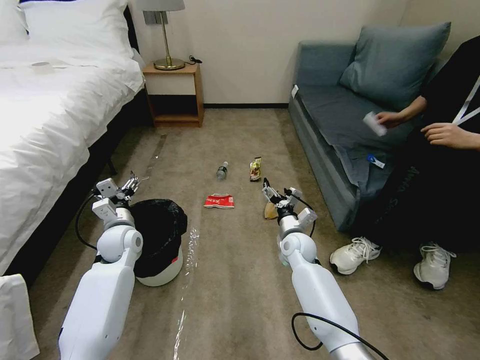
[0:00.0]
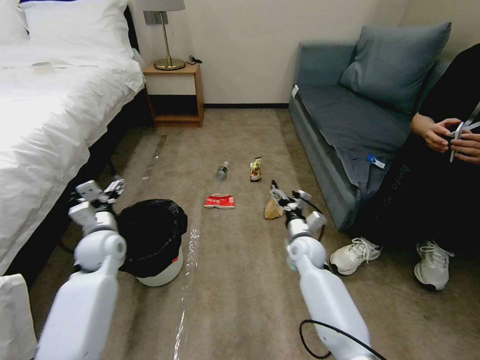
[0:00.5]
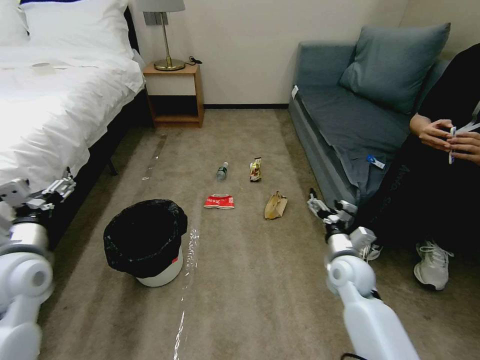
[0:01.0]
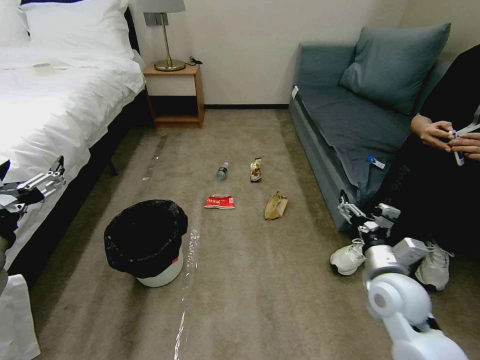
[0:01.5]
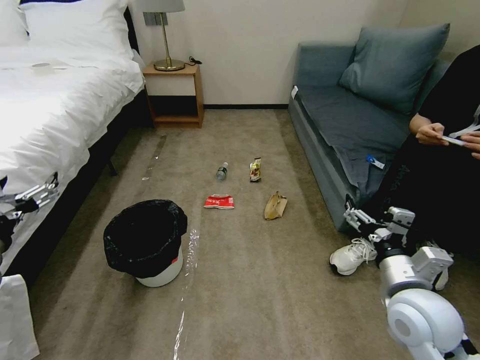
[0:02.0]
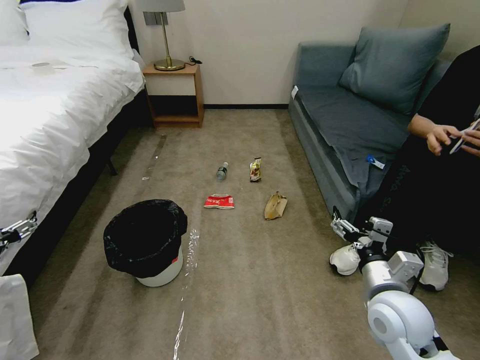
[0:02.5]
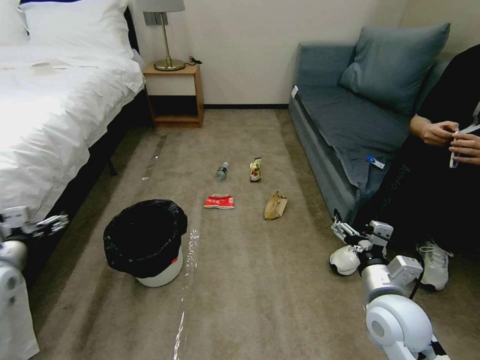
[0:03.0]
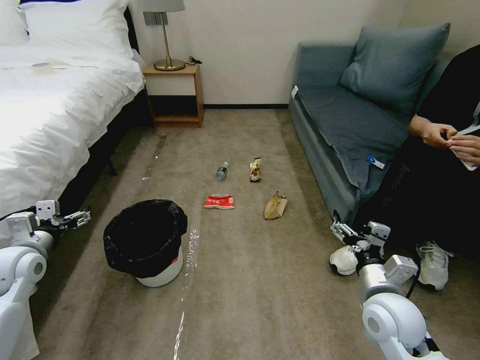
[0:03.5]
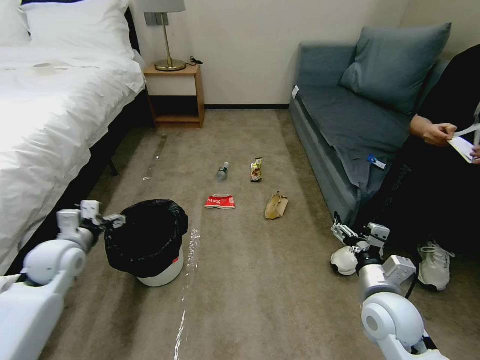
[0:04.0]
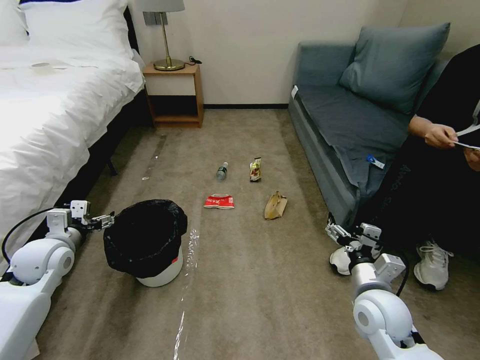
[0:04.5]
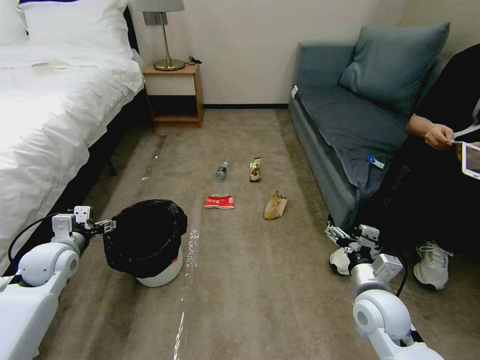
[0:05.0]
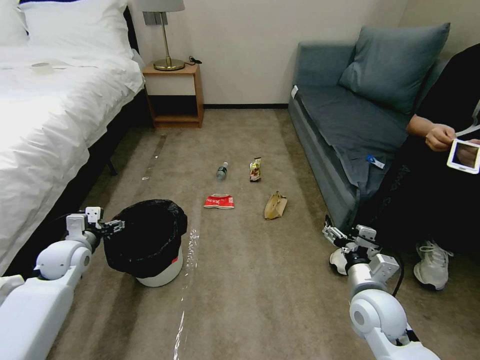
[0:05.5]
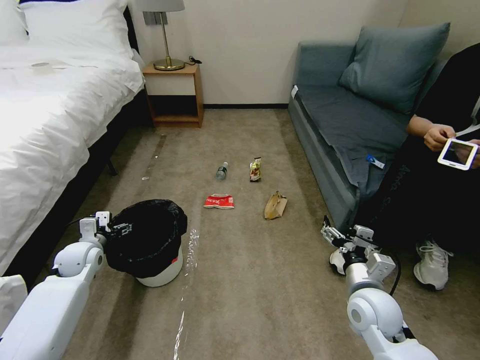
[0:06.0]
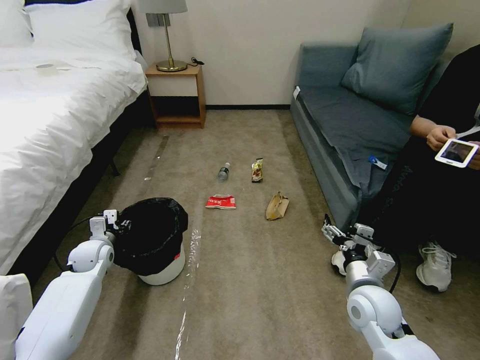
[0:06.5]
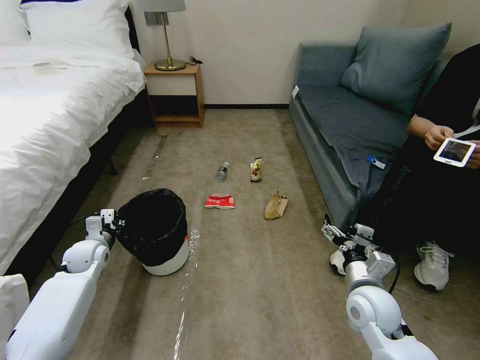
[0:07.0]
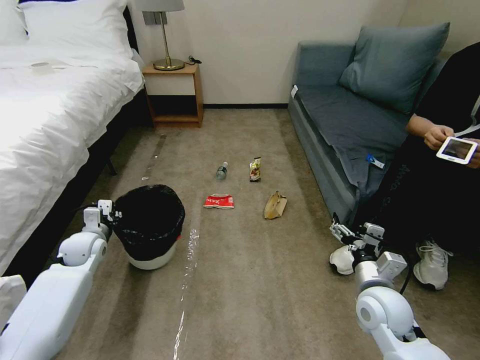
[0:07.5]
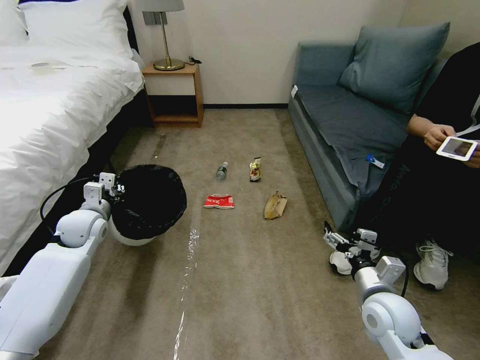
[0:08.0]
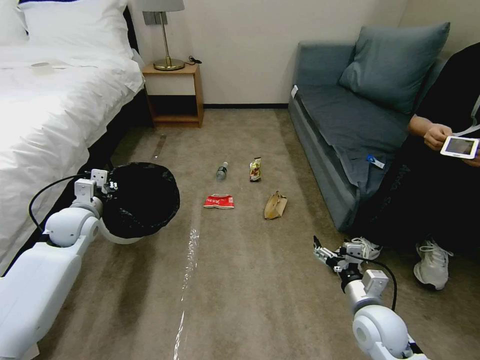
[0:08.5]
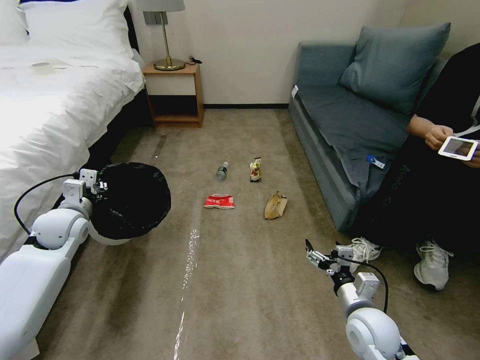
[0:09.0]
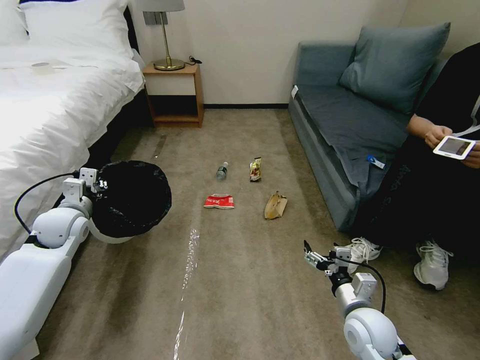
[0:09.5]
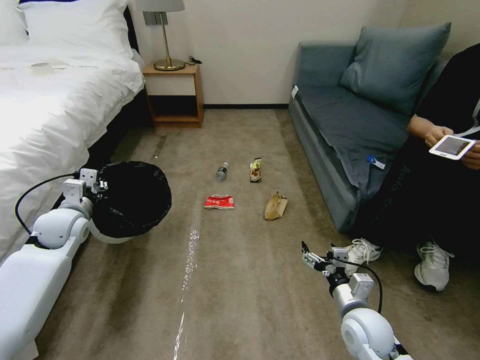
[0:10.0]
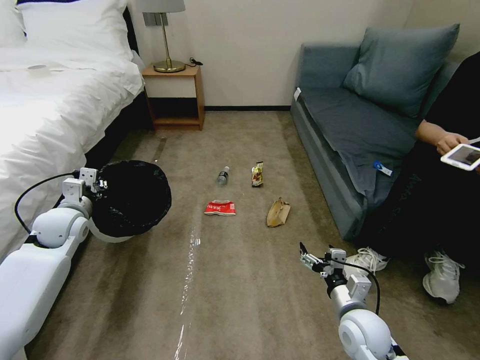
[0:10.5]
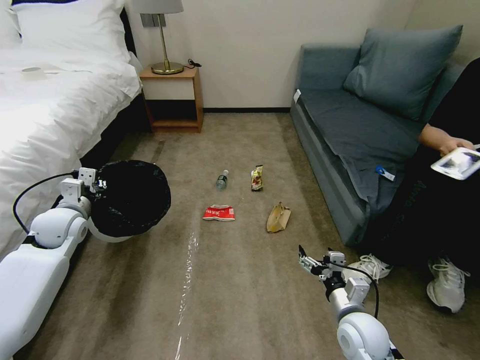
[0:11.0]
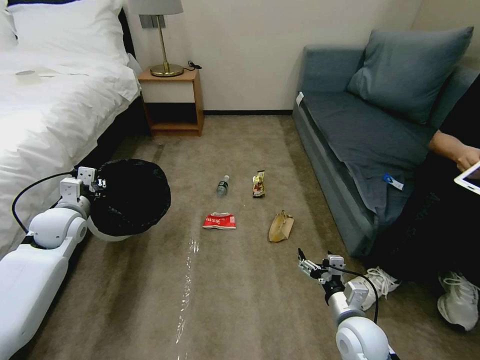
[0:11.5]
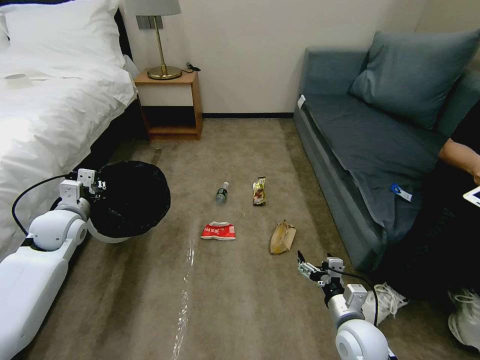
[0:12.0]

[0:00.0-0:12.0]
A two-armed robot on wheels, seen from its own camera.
Task of the whole recording: Pick up the trash bin, then pick up the garbage on the floor and place it into the trash bin.
0:02.0 to 0:04.0: The left gripper travels downward and forward by roughly 20 cm. The right gripper travels downward by roughly 5 cm.
0:04.0 to 0:06.0: The left gripper moves downward, roughly 10 cm.
0:06.0 to 0:08.0: The left gripper heads upward, covering about 10 cm, and closes.
0:08.0 to 0:10.0: The right gripper moves downward, some 5 cm.

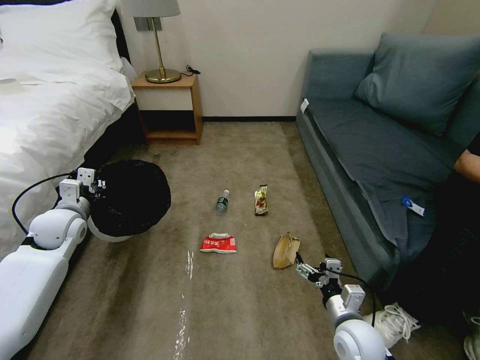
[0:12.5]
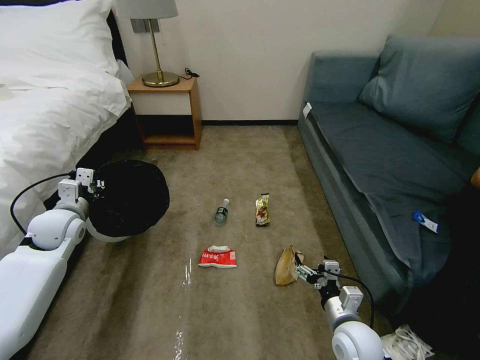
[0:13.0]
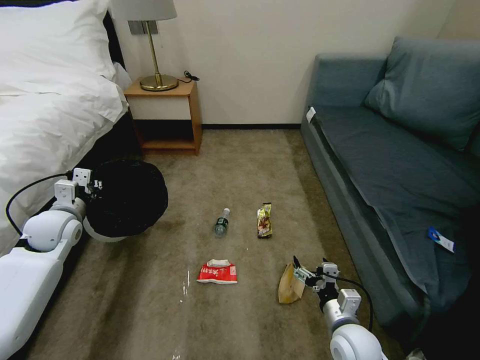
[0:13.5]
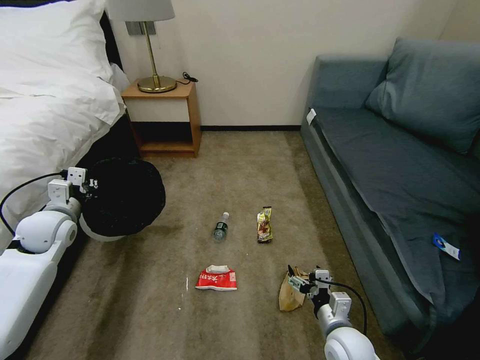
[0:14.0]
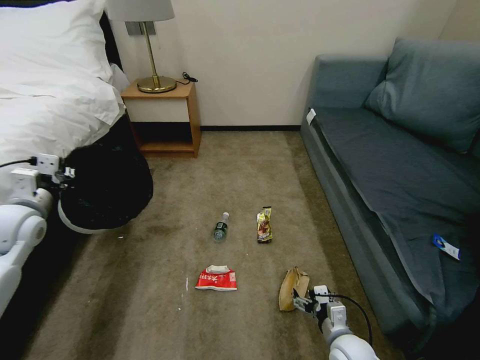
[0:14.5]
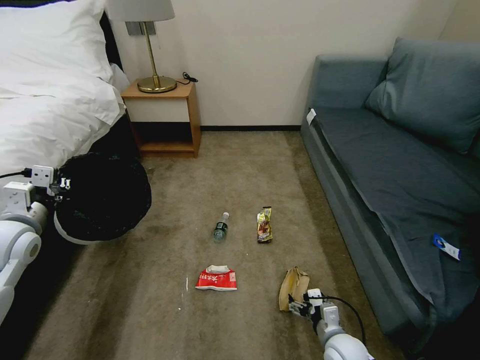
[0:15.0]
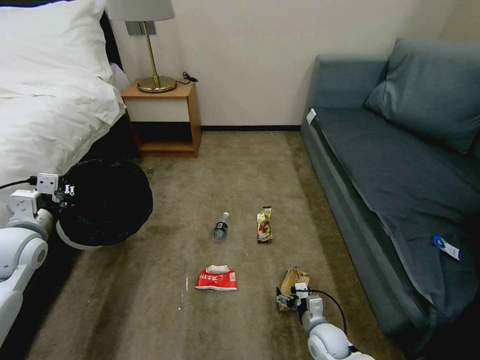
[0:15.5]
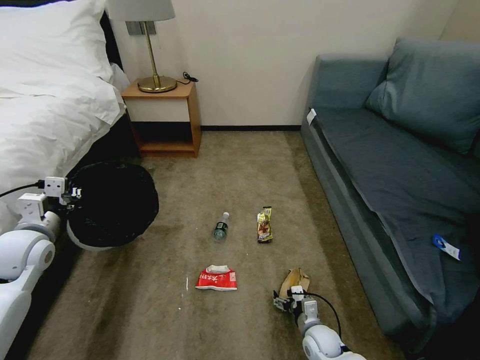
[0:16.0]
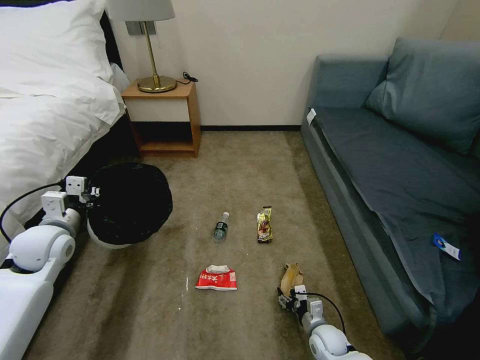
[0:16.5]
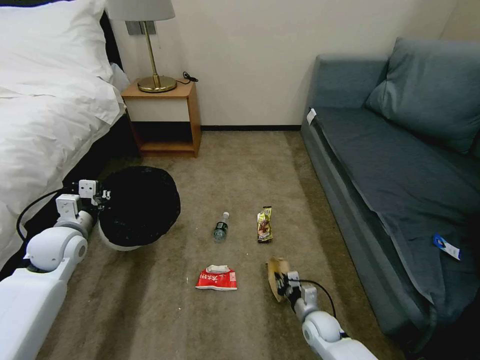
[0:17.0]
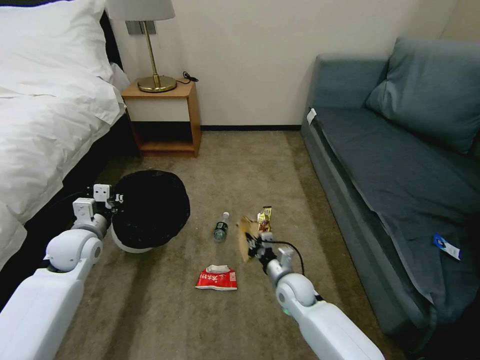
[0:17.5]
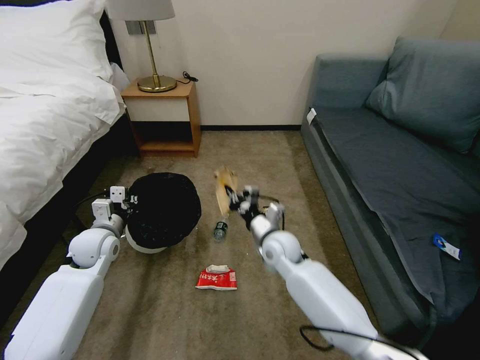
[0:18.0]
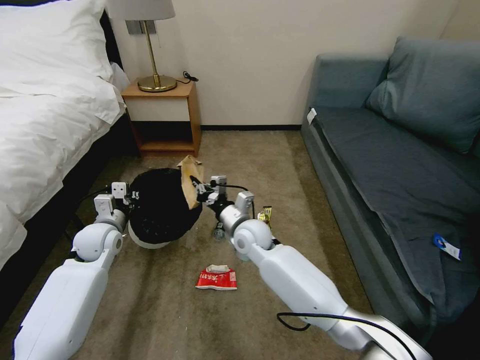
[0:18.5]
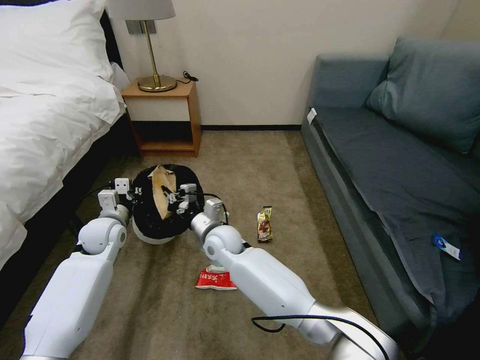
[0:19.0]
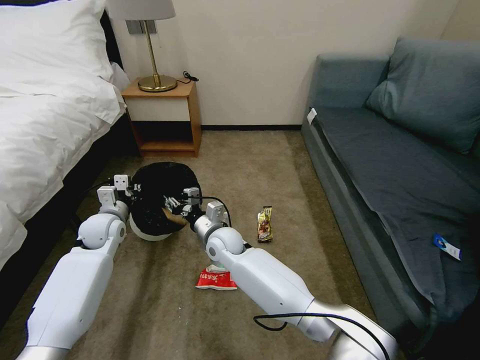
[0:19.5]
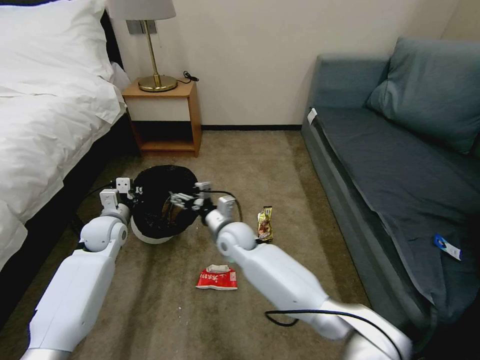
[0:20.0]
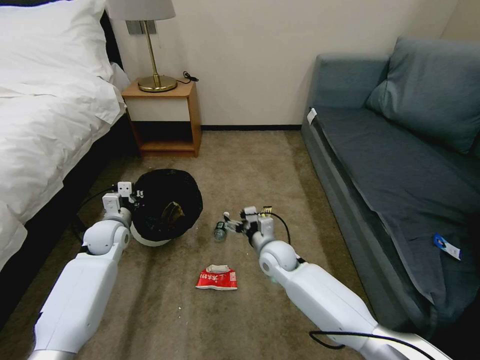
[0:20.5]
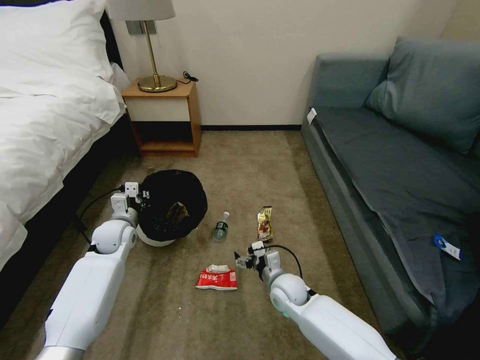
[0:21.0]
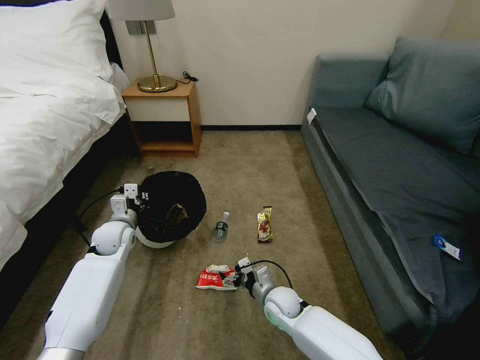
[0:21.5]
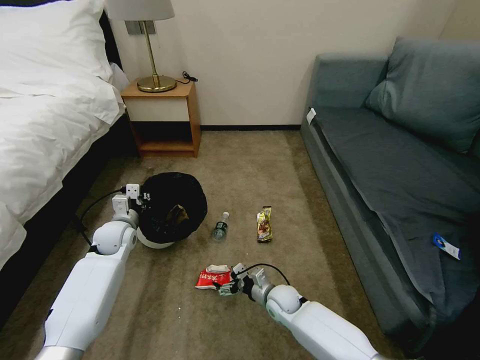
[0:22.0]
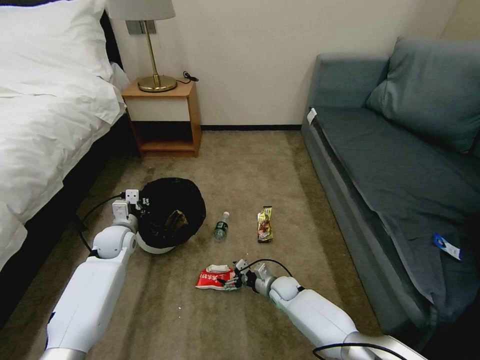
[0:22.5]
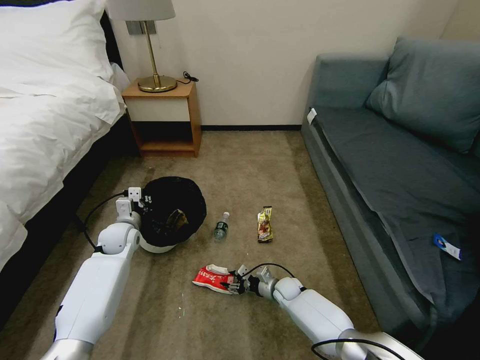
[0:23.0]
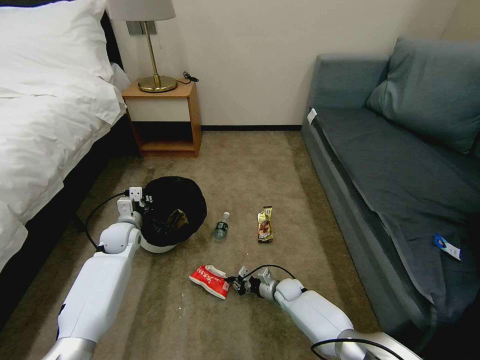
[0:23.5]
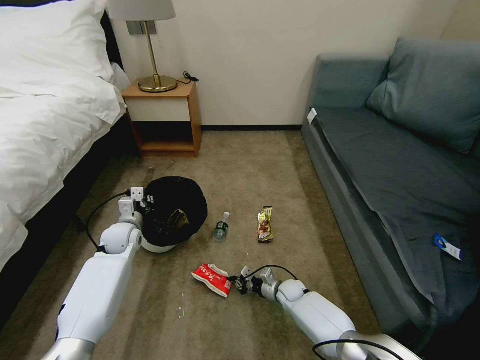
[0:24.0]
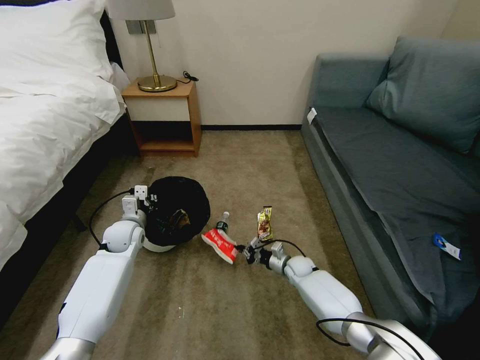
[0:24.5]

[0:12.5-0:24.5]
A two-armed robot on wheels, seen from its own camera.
Task of the whole recording: Pick up the trash bin, then pick up the garbage on the floor and place it into the trash bin.
0:12.5 to 0:14.5: The right gripper heads downward, covering some 5 cm; the left gripper is displaced upward by about 5 cm.
0:14.5 to 0:16.5: The left gripper is displaced downward by roughly 5 cm, while the right gripper heads downward, covering roughly 10 cm.
0:16.5 to 0:18.5: The left gripper heads to the right, downward and forward, covering roughly 10 cm. Meanwhile the right gripper is displaced upward, to the left and forward by some 40 cm, and closes up.
0:18.5 to 0:20.5: The right gripper moves to the right and downward, some 10 cm, and opens its fingers.
0:20.5 to 0:22.5: The right gripper shifts about 20 cm downward.
0:22.5 to 0:24.5: The right gripper is displaced forward and to the right by some 10 cm, and closes.

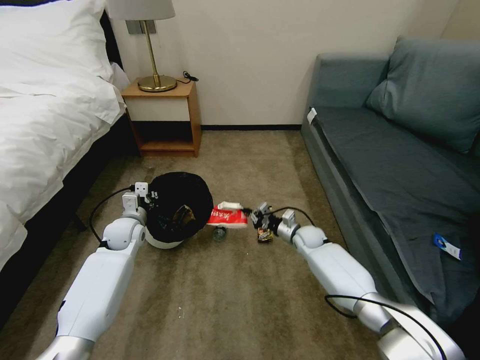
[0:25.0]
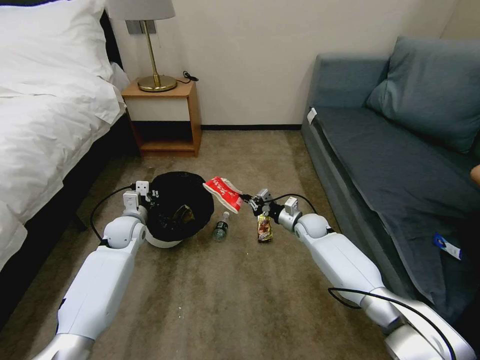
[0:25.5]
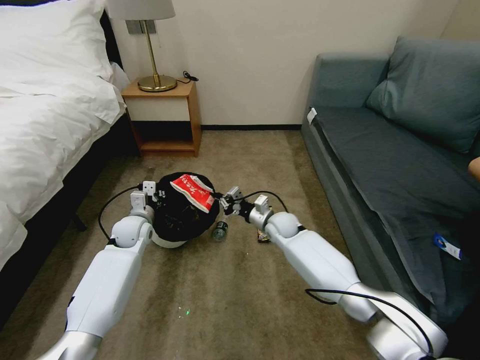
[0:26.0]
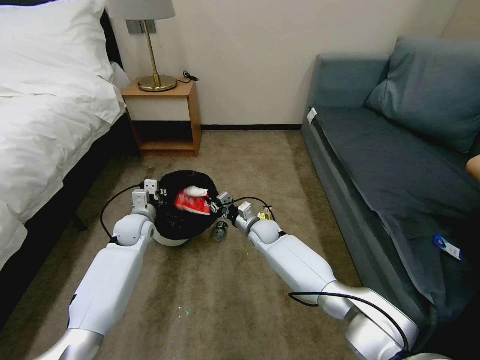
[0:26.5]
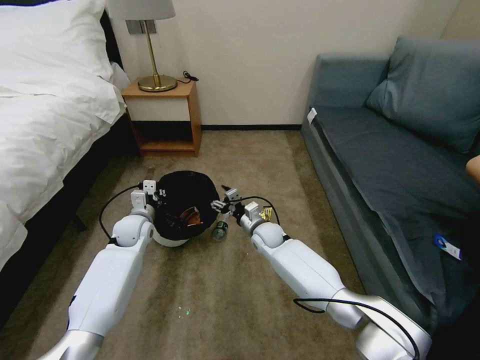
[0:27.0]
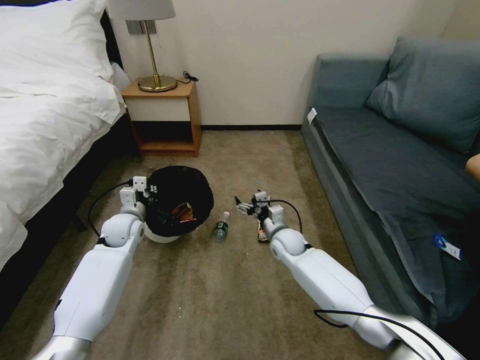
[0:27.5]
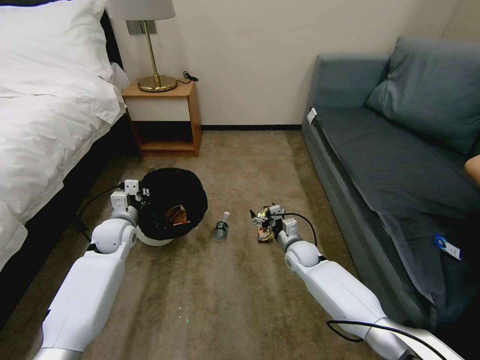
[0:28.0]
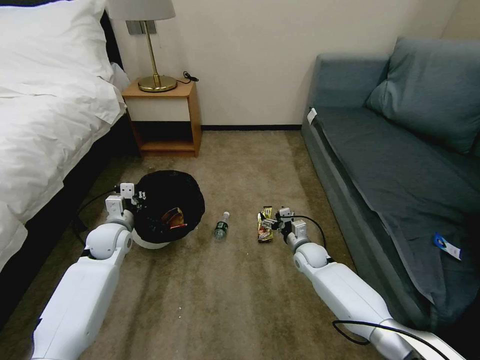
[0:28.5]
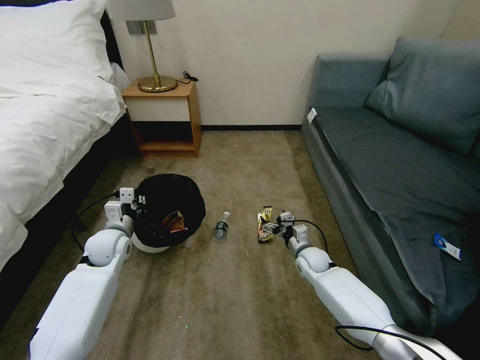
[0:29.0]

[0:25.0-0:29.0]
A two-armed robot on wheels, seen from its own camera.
Task of the whole recording: Pick up the trash bin, then pick up the garbage on the floor and place it into the trash bin.
0:25.0 to 0:27.0: The right gripper moves to the left, about 15 cm, and opens up.
0:27.0 to 0:29.0: The right gripper heads to the right and downward, covering about 15 cm; the left gripper moves backward, roughly 5 cm.
